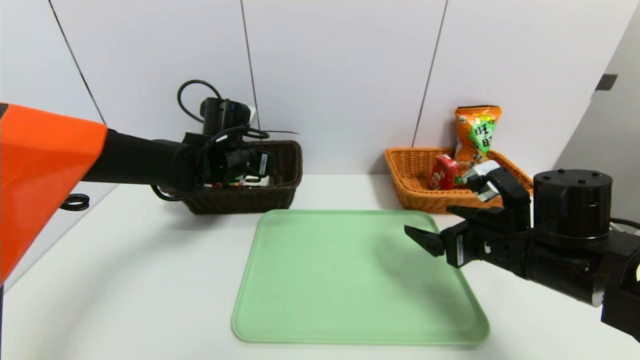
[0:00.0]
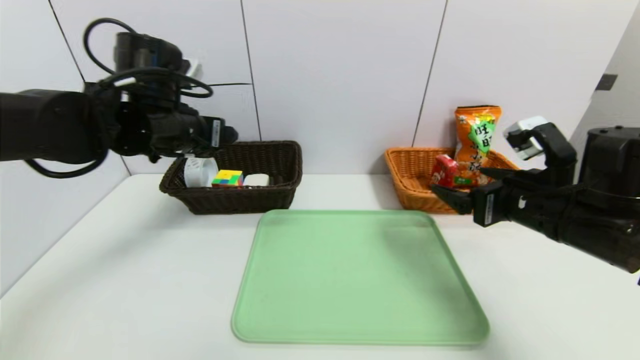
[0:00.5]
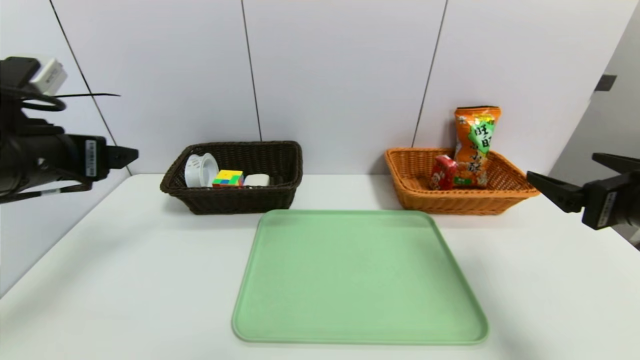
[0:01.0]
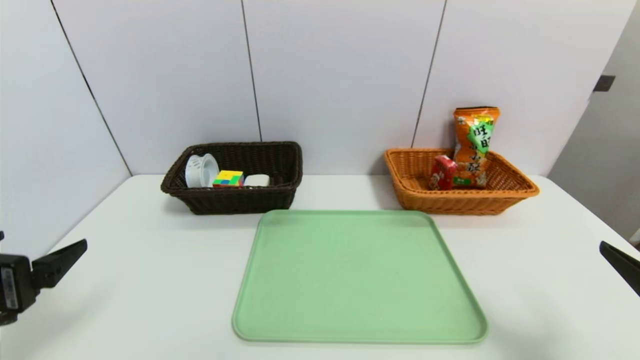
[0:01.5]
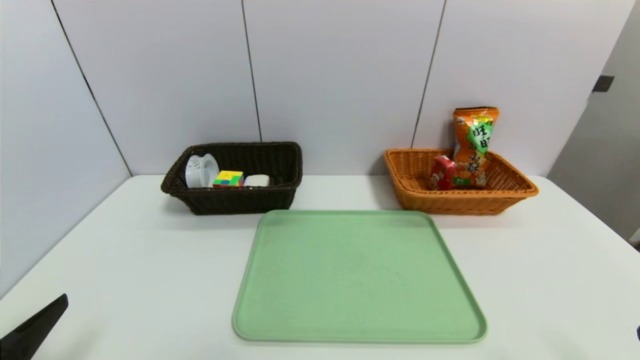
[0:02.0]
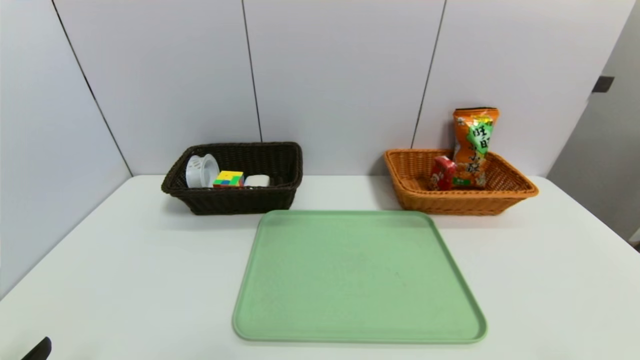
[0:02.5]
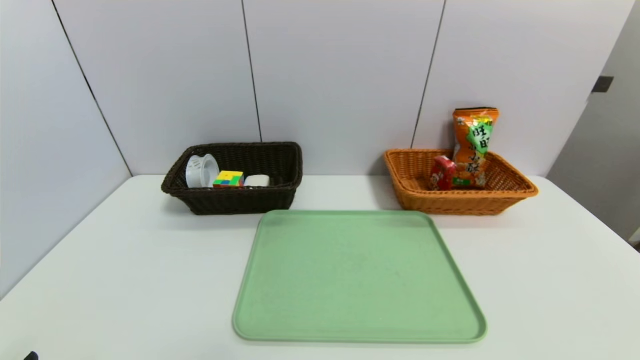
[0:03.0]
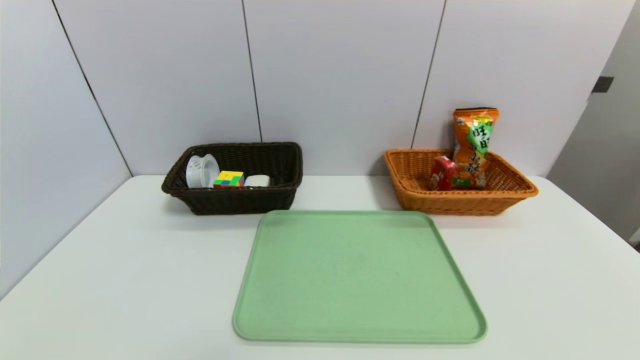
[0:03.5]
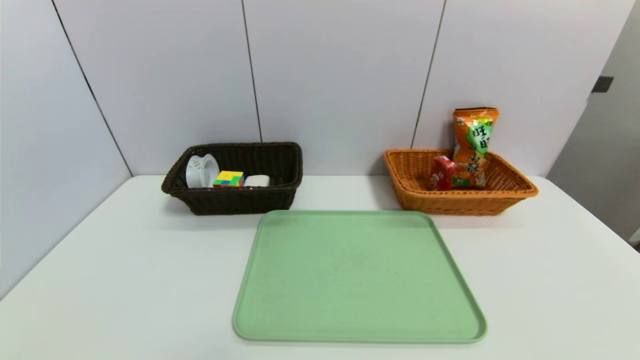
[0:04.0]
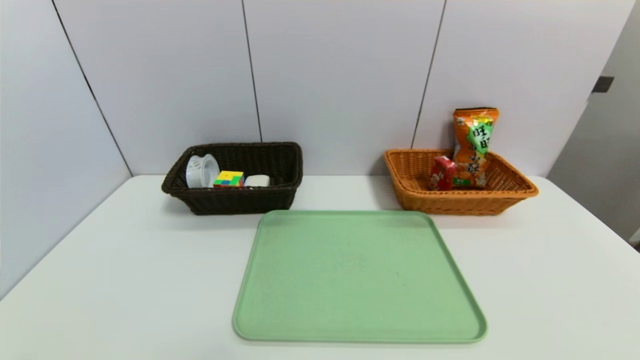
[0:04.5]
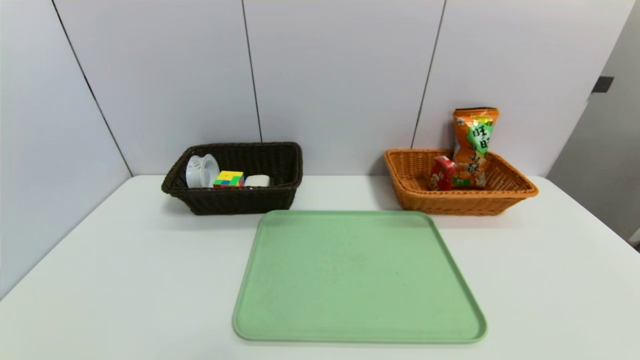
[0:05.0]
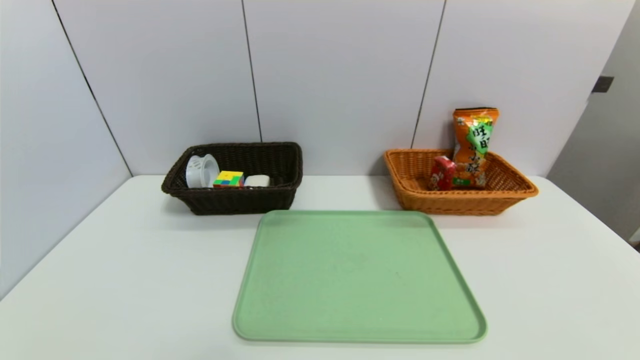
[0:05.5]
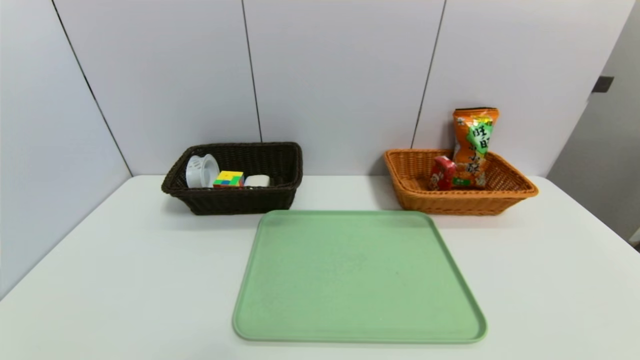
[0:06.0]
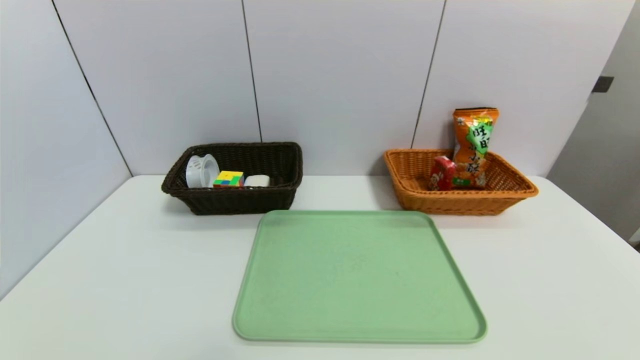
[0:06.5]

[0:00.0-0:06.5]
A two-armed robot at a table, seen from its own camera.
Task of the whole recording: place the food in the right basket with the right gripper, and place the non food items in the left basket with the left gripper.
0:00.0 to 0:02.0: The right gripper goes about 25 cm backward and to the right. The left gripper shifts some 40 cm backward and to the left.
0:02.0 to 0:04.5: The left gripper shifts approximately 10 cm downward and backward.
